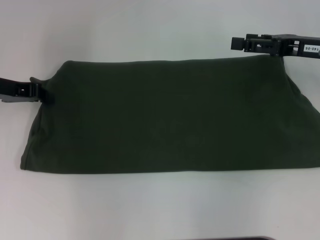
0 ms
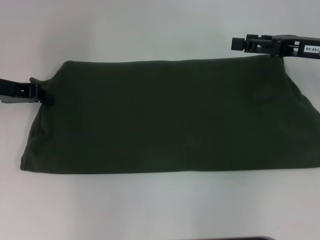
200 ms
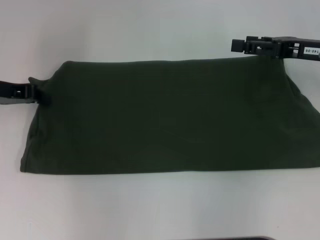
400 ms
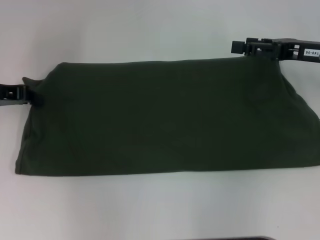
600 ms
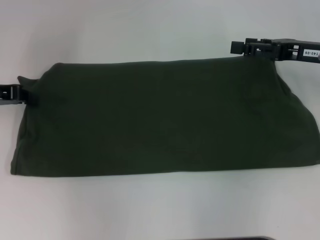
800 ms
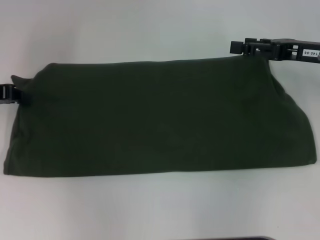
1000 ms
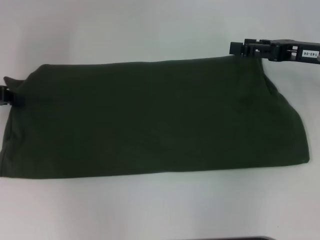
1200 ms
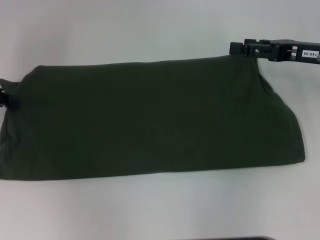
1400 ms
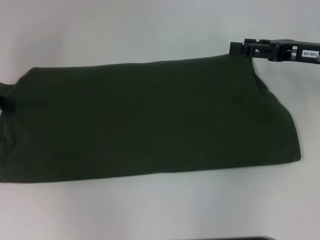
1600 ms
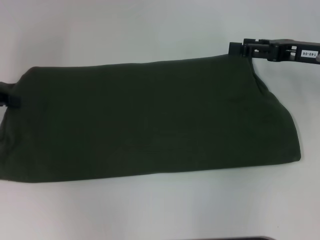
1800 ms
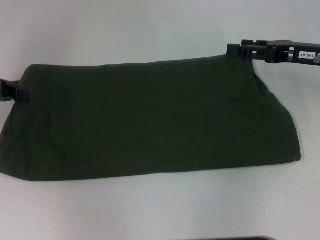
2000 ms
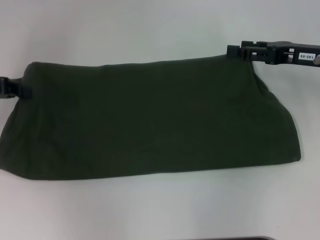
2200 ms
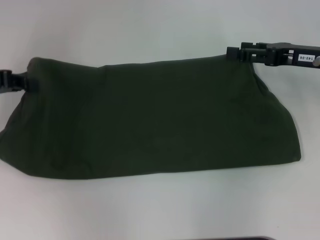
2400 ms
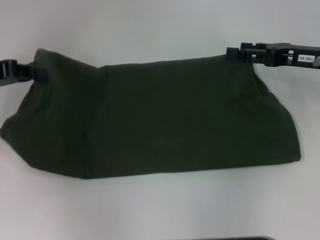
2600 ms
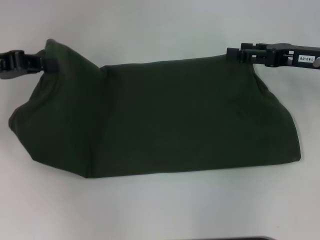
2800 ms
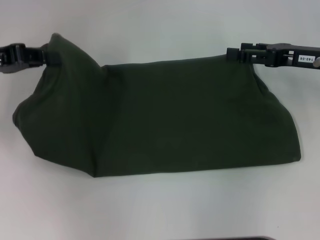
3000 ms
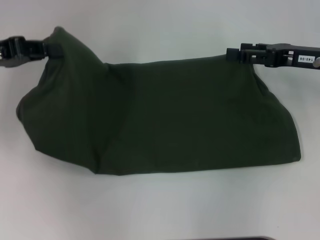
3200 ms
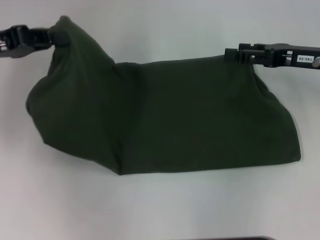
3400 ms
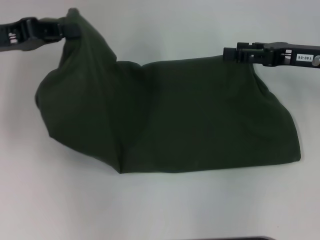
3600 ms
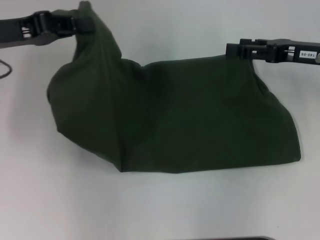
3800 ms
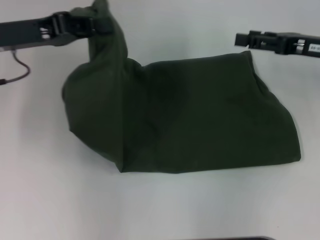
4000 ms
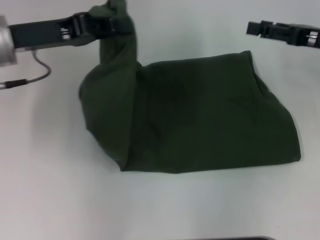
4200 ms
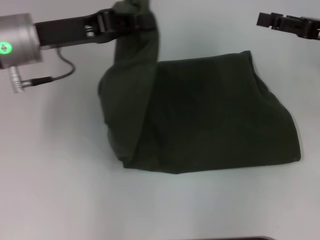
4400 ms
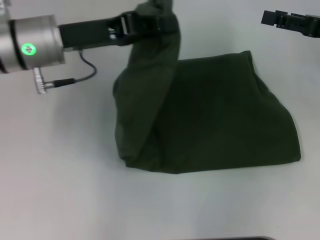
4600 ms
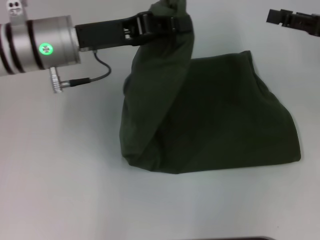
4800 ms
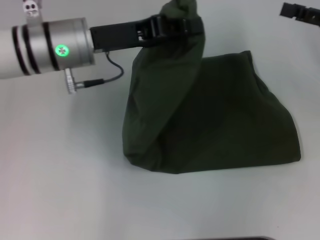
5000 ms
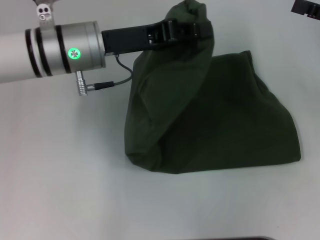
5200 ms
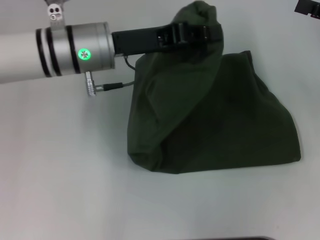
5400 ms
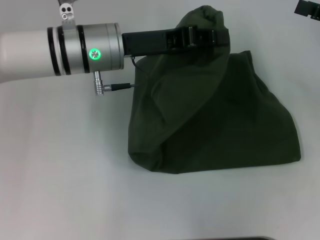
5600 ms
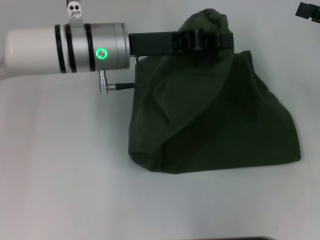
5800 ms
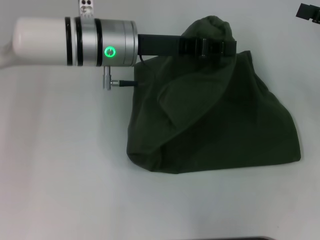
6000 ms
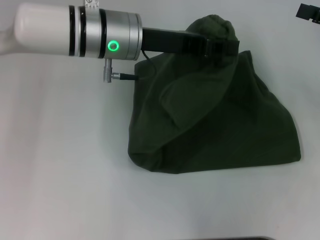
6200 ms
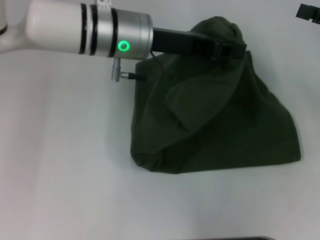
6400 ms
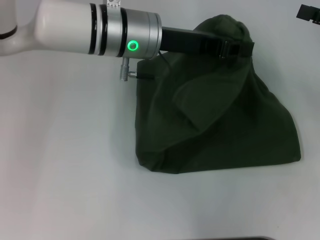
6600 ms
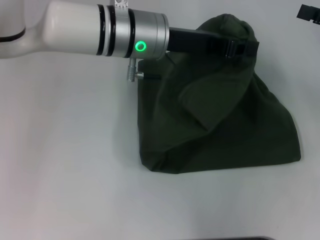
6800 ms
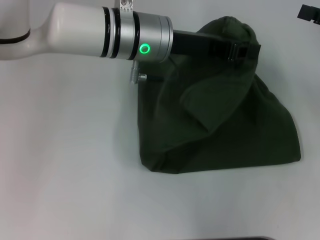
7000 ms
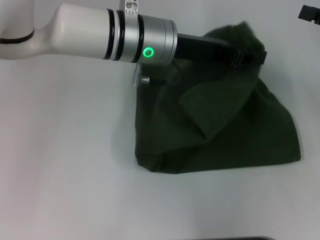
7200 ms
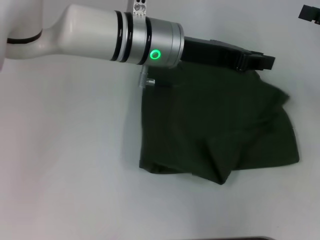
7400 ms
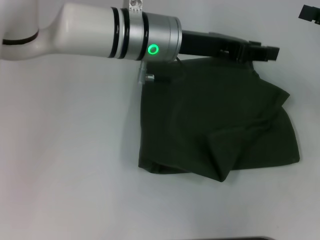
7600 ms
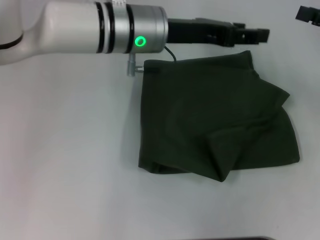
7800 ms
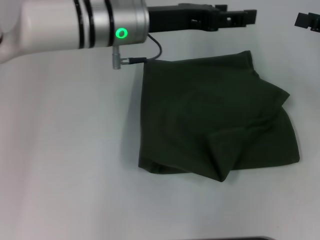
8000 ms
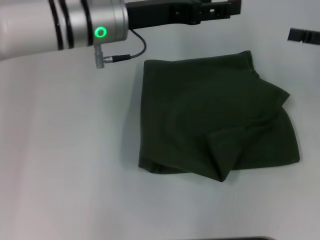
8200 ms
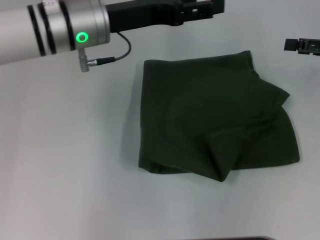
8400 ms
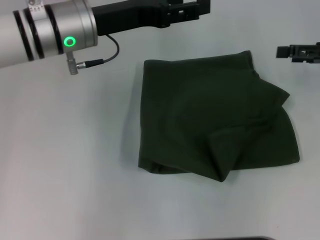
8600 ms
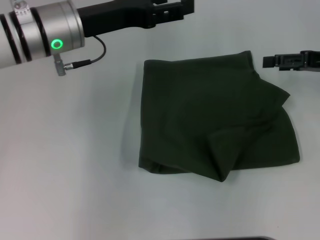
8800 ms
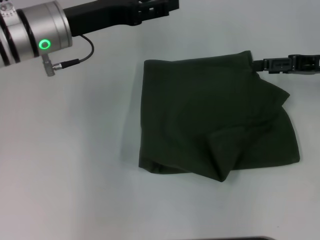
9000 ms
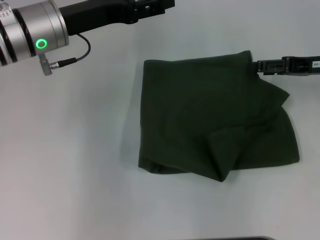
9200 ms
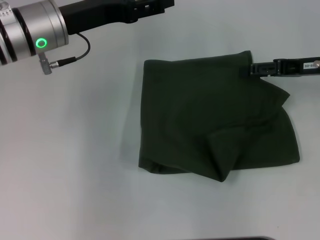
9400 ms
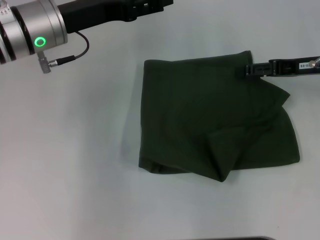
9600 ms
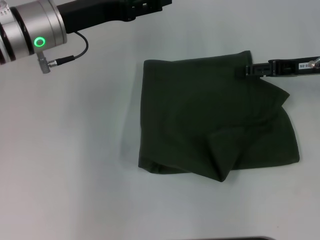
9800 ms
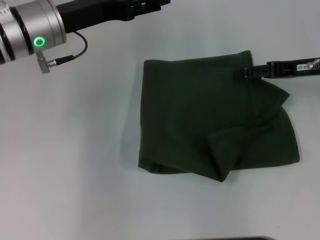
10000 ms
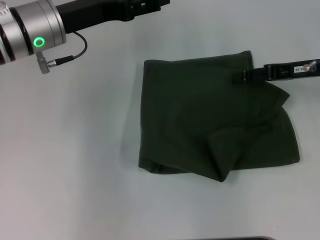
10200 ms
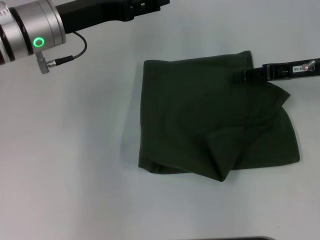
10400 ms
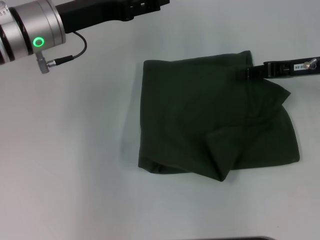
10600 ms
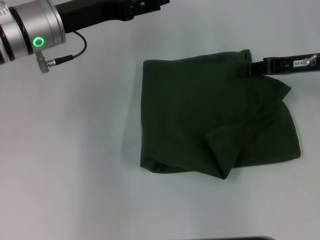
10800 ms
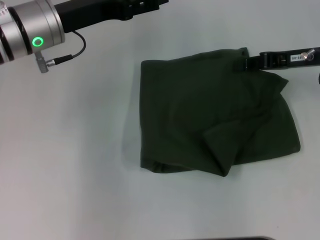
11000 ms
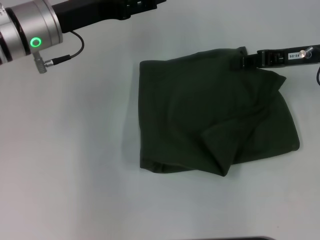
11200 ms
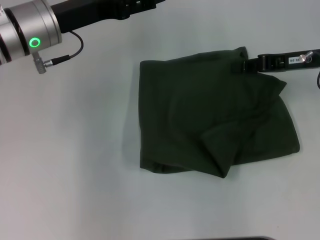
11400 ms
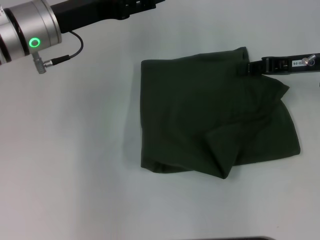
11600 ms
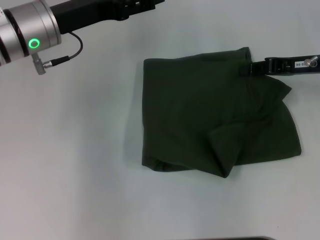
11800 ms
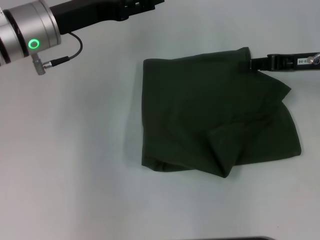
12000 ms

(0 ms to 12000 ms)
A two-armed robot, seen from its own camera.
Step, 0 ms - 8000 ms: Fold the clothes with your left hand.
0 ms - 1600 ms: The left gripper heads to the left, covering roughly 5 cm.
1600 ms - 3000 ms: The left gripper moves roughly 5 cm.
3000 ms - 4400 ms: The left gripper is displaced to the right by approximately 10 cm.
4400 ms - 6000 ms: The left gripper heads to the right, covering approximately 10 cm.
6000 ms - 7600 ms: The left gripper goes some 5 cm to the right.
7600 ms - 9000 ms: The right gripper ends up about 5 cm from where it was. The left gripper goes approximately 15 cm to the left, and opens.
9000 ms - 10400 ms: The grippers stay close to where they were, moving slightly.
10400 ms - 12000 ms: The right gripper closes its fingers.

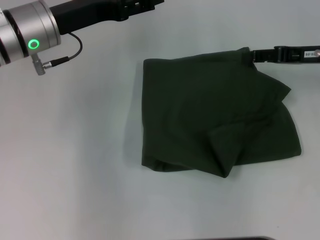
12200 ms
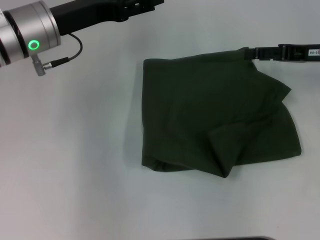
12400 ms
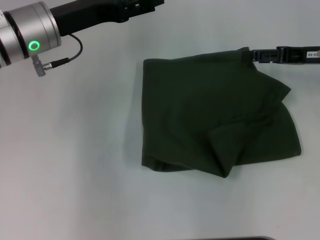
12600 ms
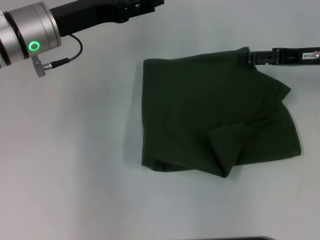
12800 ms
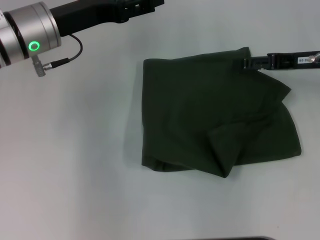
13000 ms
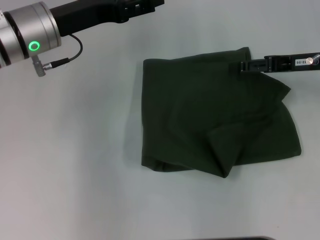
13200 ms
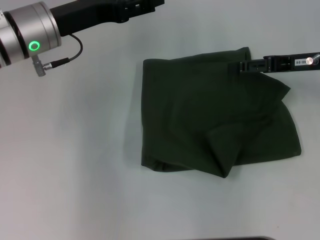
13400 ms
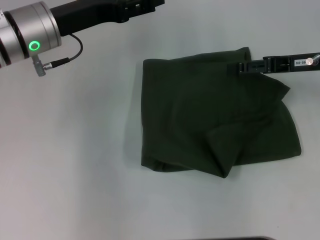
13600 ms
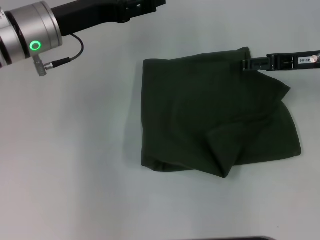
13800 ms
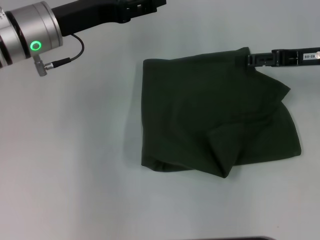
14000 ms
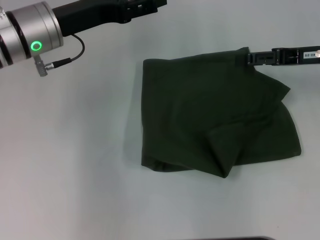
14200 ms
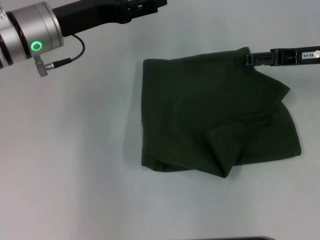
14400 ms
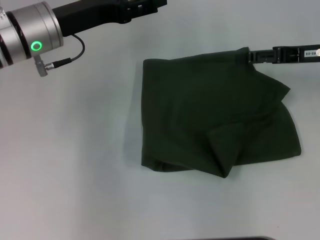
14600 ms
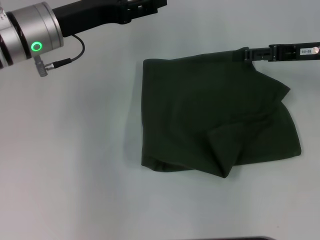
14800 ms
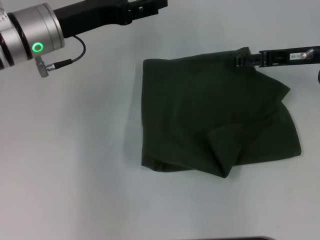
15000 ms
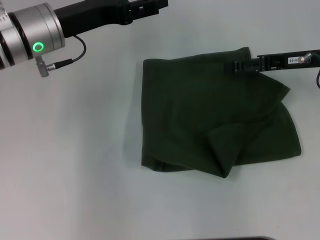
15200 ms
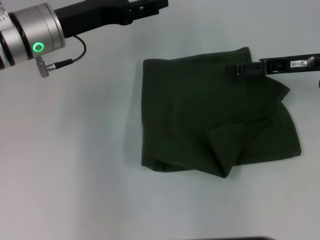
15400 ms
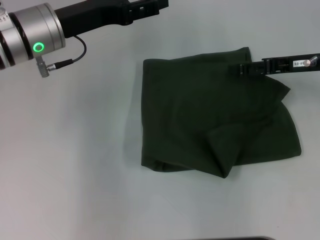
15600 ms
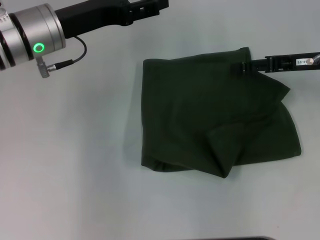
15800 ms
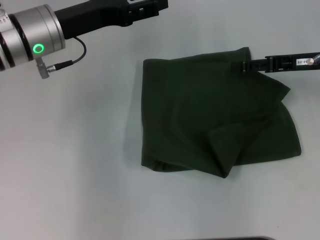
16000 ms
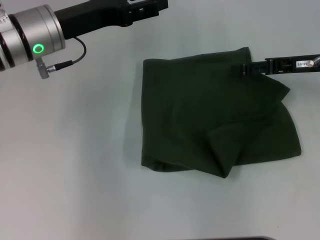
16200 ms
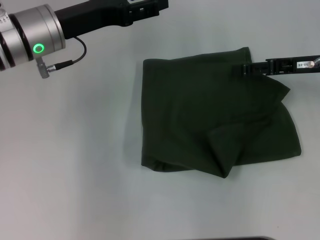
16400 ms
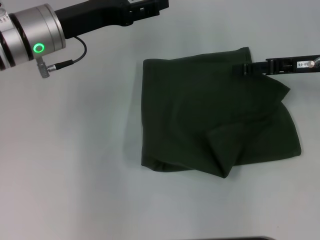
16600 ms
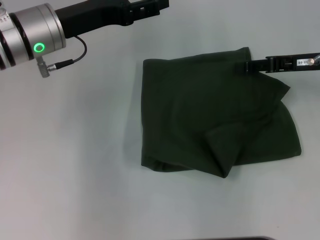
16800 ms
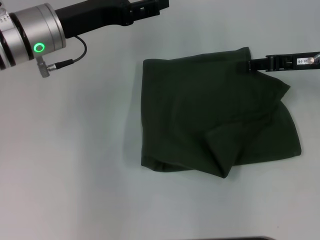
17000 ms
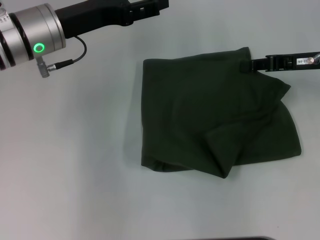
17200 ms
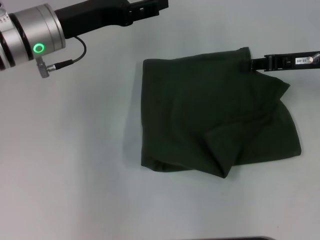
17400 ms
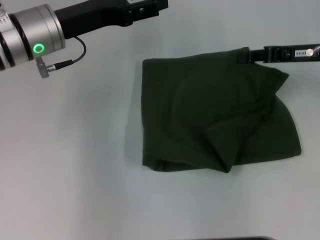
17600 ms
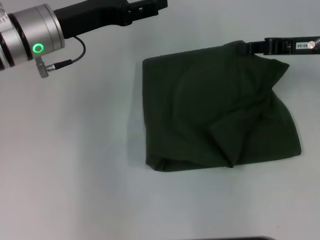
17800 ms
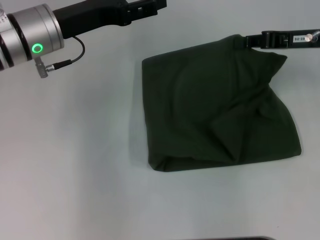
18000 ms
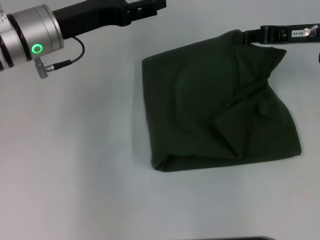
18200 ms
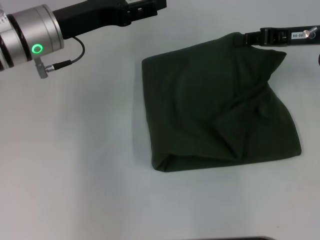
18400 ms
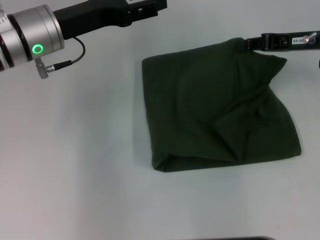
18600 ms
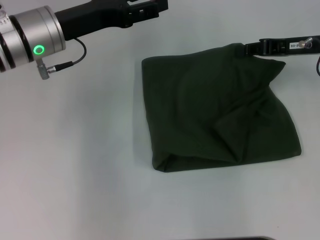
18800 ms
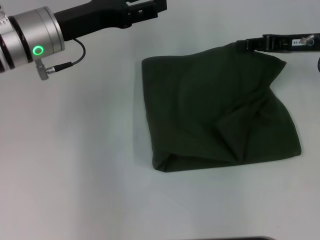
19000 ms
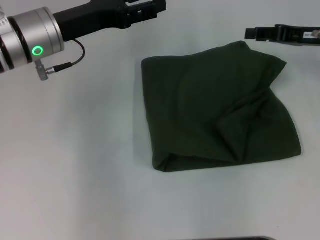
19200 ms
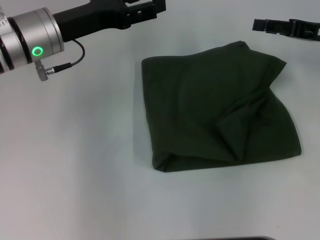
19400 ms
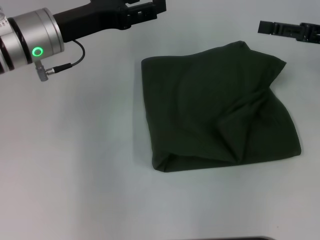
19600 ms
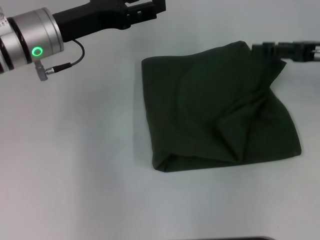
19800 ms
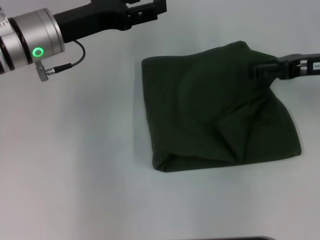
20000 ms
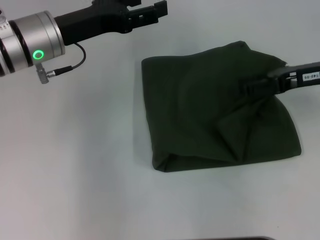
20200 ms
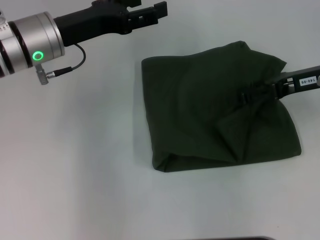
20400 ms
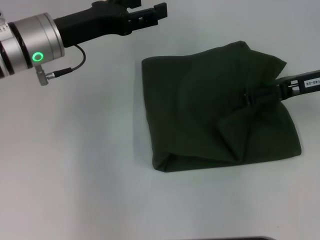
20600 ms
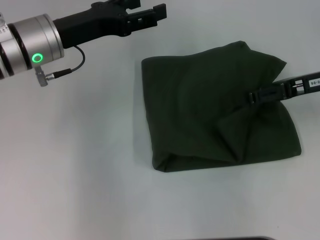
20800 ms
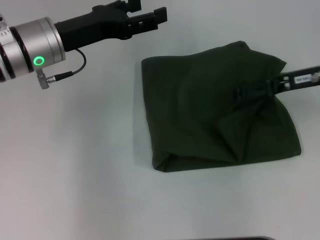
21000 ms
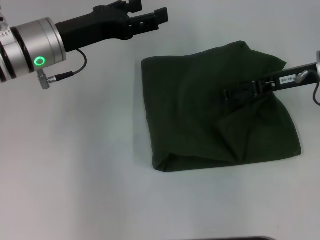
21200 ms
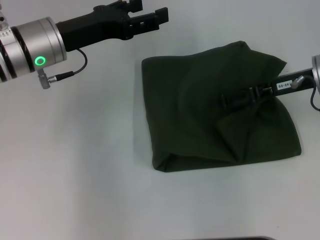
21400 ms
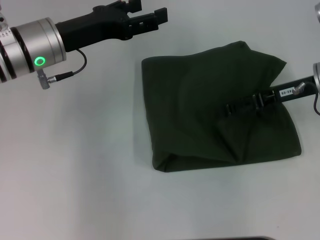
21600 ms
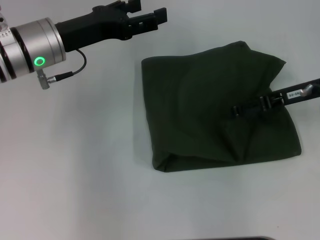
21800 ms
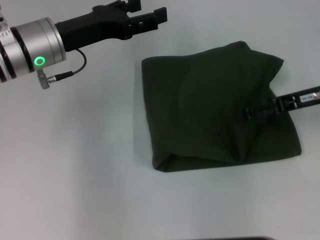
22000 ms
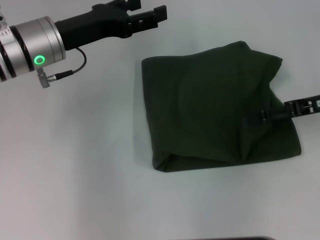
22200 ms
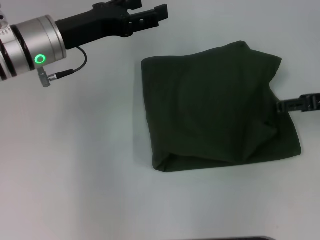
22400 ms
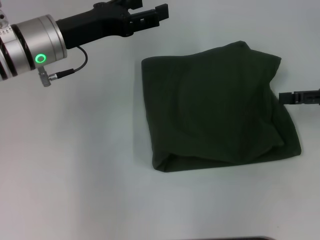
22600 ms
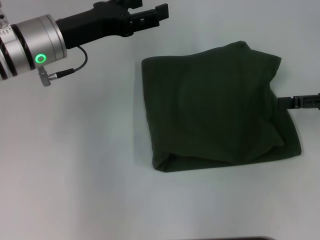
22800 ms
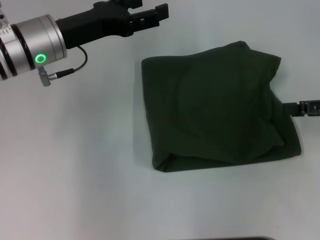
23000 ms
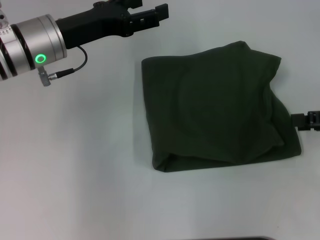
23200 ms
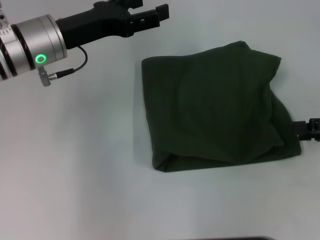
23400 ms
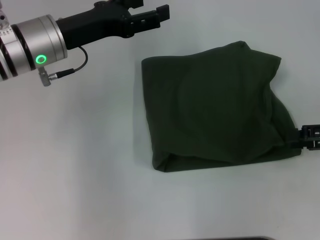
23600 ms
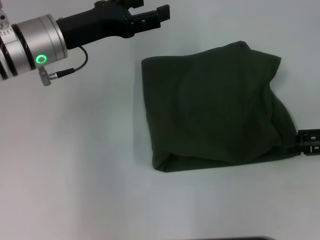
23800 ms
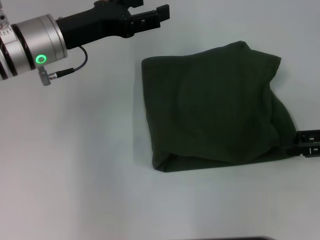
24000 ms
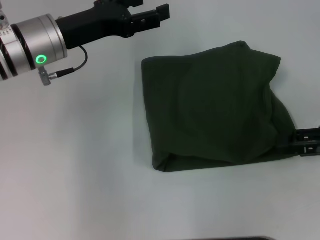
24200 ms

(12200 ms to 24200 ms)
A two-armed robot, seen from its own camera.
12200 ms - 13800 ms: The right gripper opens its fingers.
13800 ms - 16600 ms: There are only small adjustments of the grippers.
16600 ms - 18200 ms: The right gripper closes up.
18200 ms - 19800 ms: The right gripper changes place by roughly 5 cm, and opens.
19800 ms - 21200 ms: The right gripper is displaced to the left by about 5 cm.
21200 ms - 22600 ms: The right gripper shifts about 10 cm to the right and backward.
22600 ms - 24200 ms: The right gripper moves about 5 cm.
